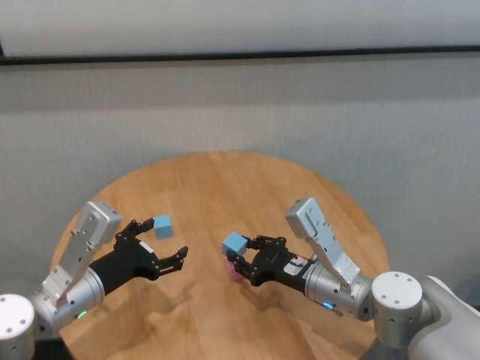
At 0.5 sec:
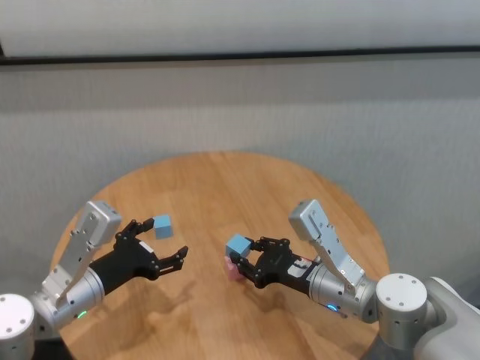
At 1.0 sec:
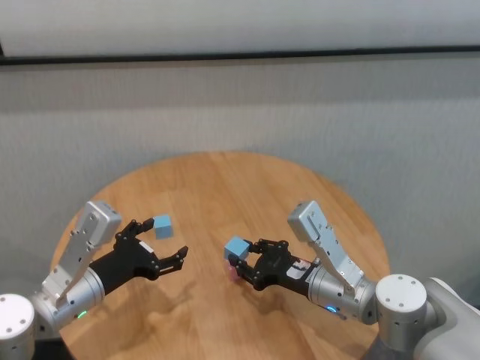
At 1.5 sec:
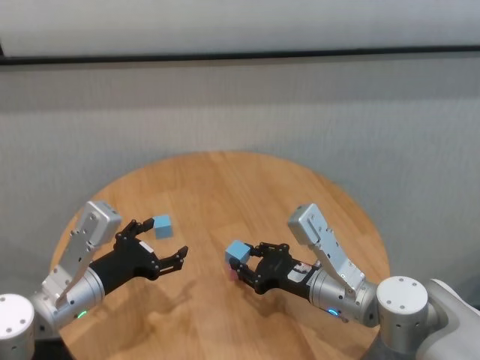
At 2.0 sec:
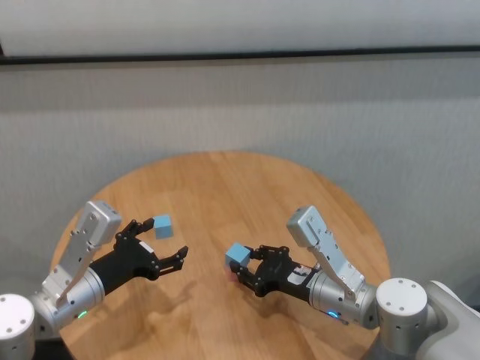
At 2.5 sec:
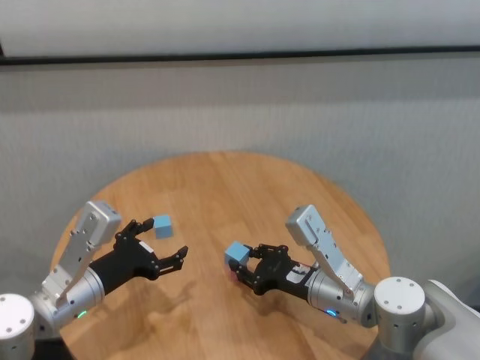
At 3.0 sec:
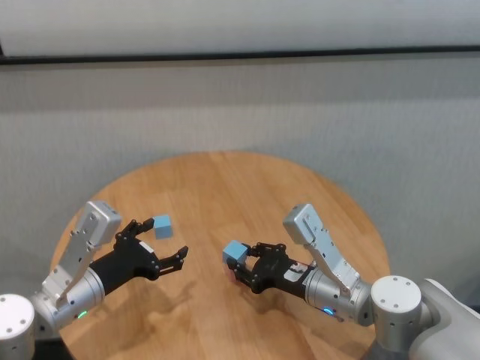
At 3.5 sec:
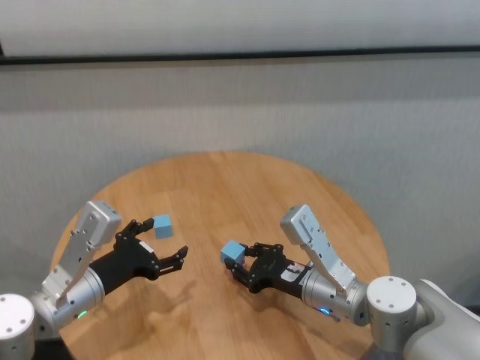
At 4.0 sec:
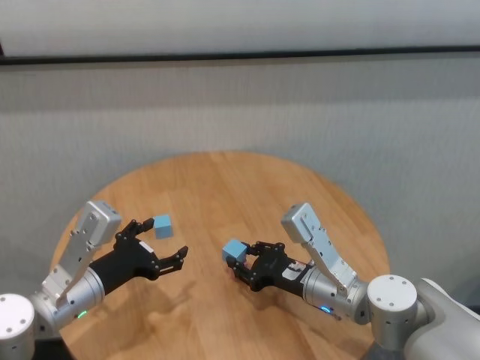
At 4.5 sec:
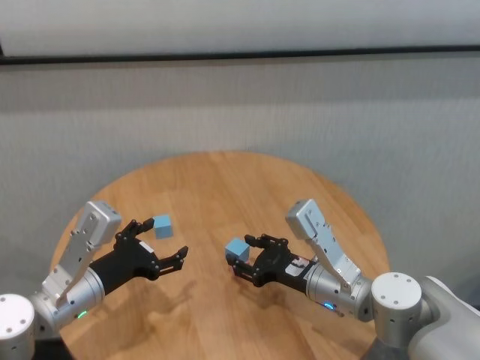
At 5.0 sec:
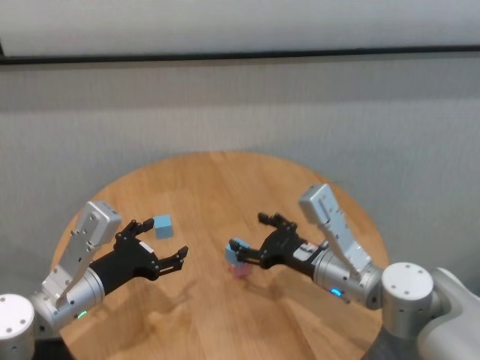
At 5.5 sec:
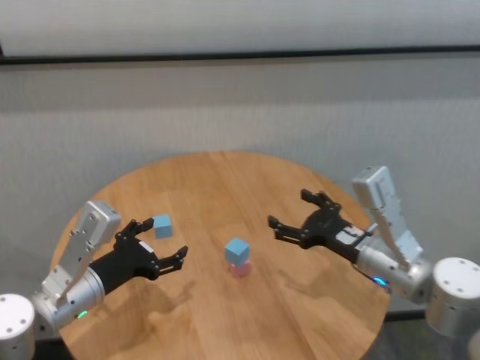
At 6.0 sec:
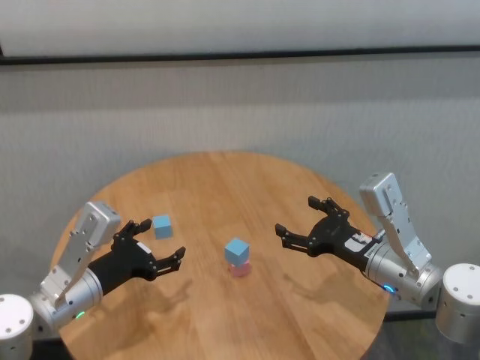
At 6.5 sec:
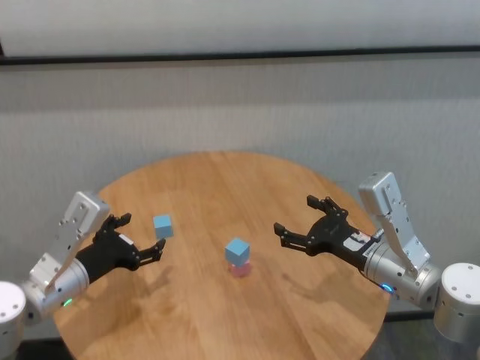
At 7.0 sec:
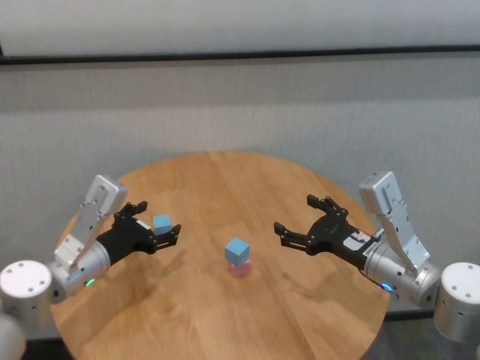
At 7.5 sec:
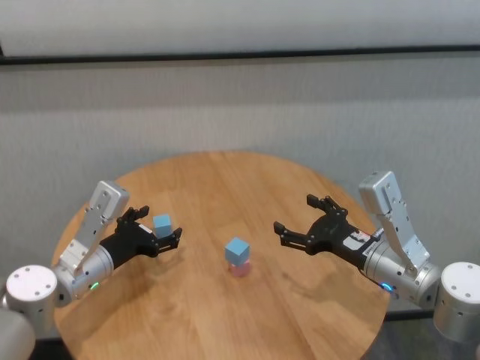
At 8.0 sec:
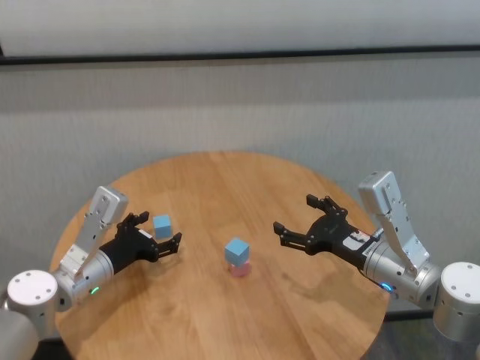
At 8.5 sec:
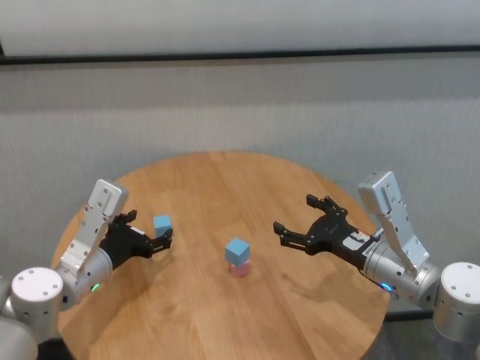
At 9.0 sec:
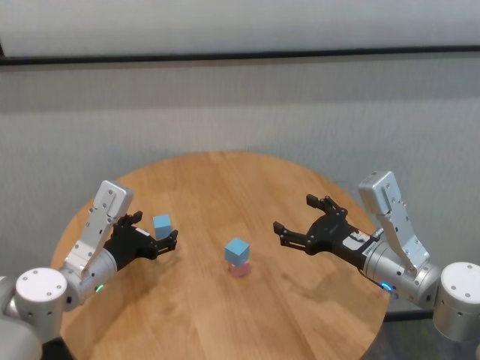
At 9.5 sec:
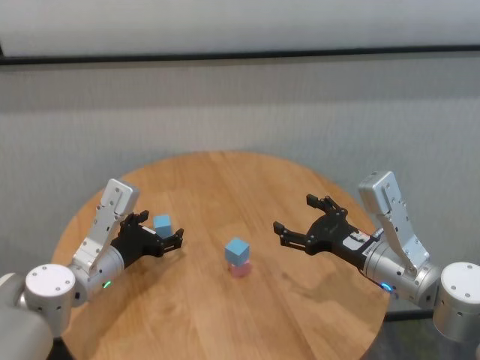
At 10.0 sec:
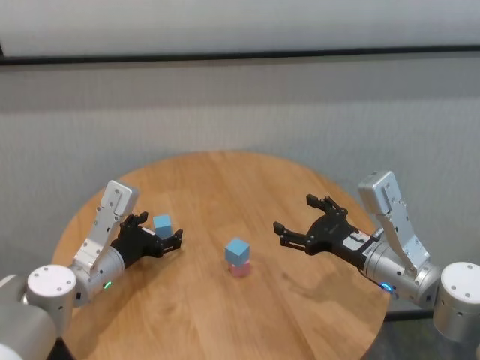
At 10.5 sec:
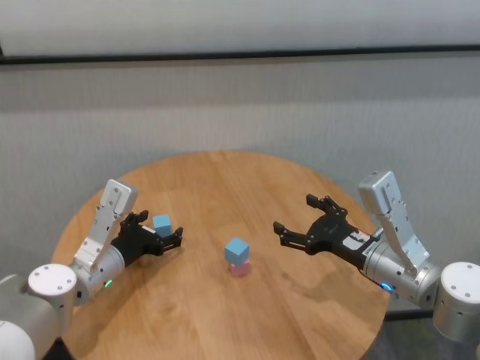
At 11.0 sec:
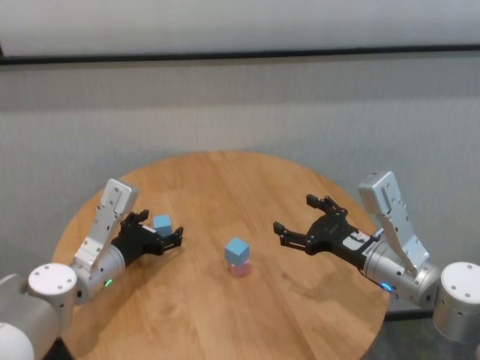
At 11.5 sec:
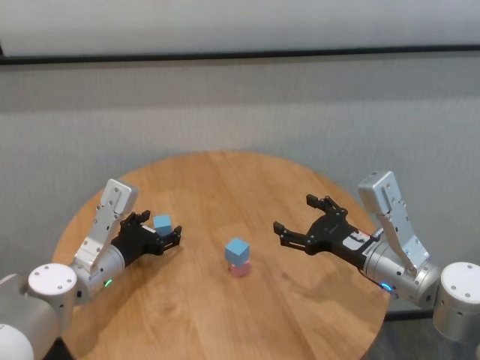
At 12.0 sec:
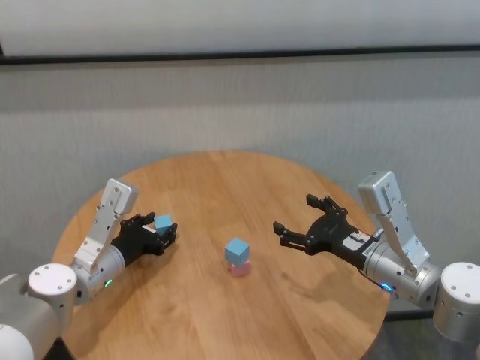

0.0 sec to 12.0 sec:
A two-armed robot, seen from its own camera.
Task of the whole recording: stack building blocks on the table.
Step, 0.0 sec to 4.5 sec: Place the blue building block on the pink building blocks with right gripper.

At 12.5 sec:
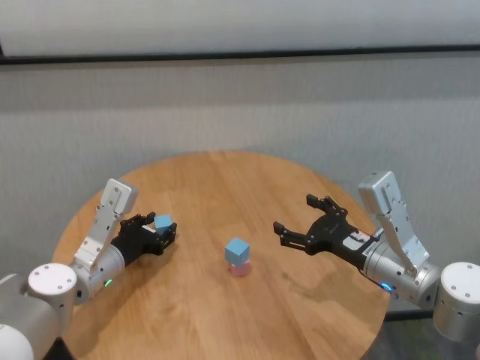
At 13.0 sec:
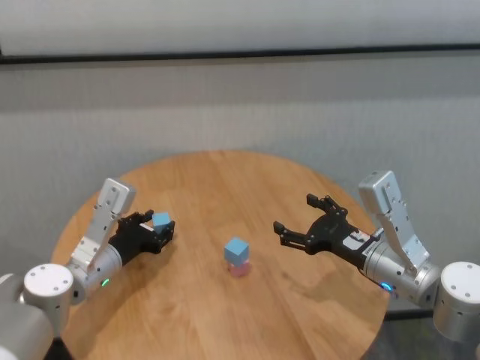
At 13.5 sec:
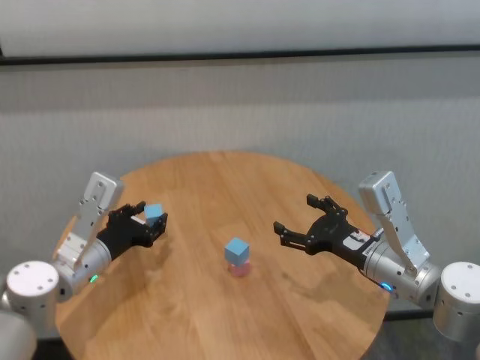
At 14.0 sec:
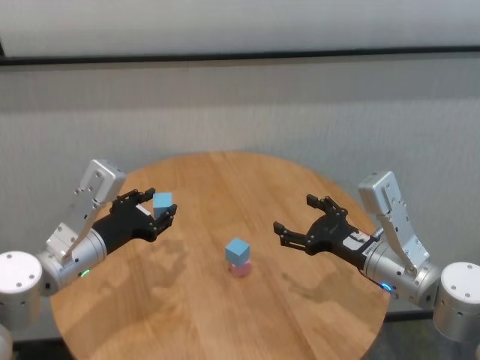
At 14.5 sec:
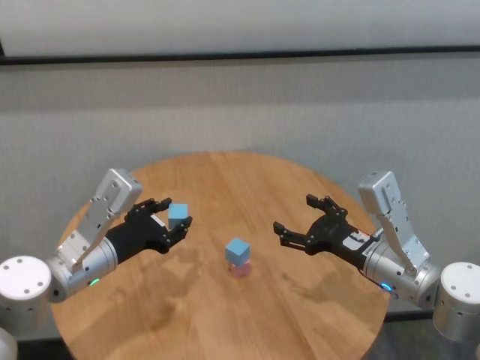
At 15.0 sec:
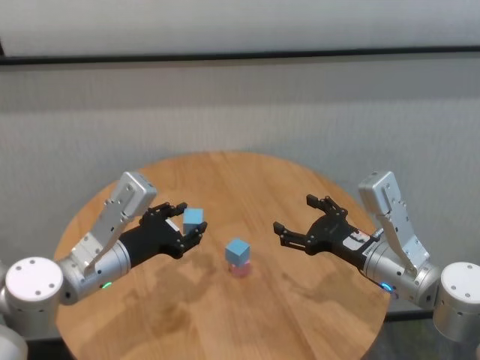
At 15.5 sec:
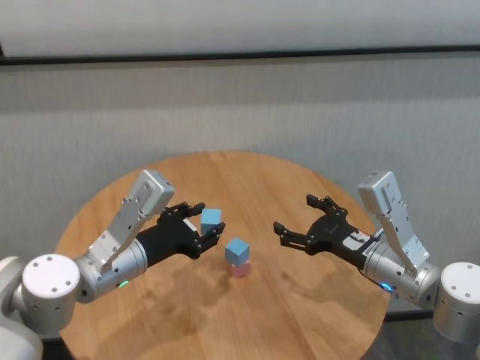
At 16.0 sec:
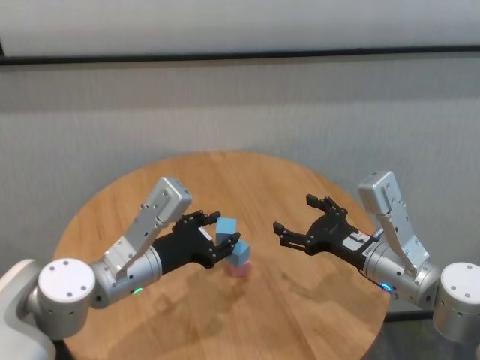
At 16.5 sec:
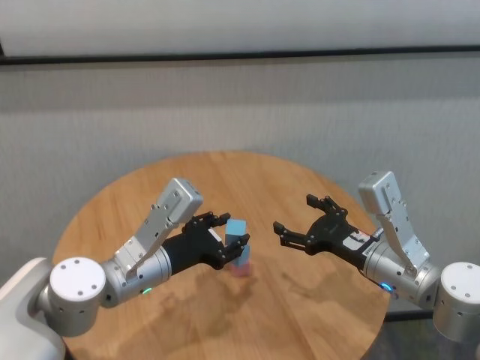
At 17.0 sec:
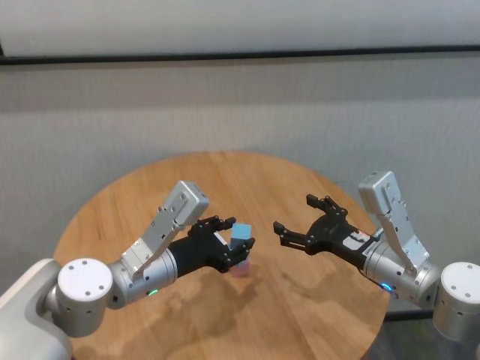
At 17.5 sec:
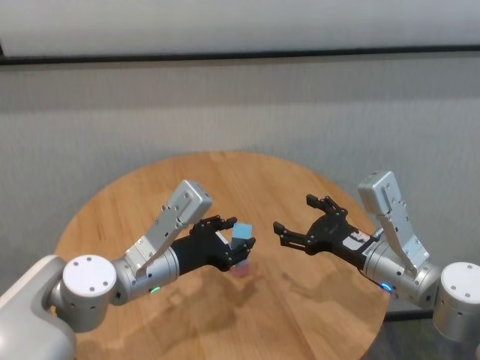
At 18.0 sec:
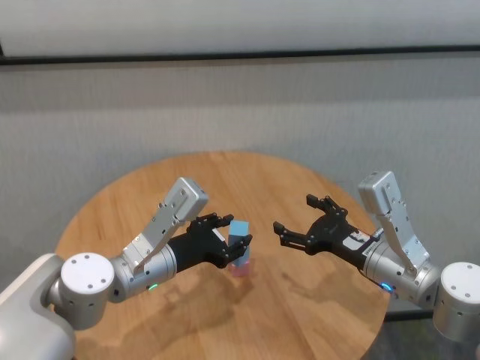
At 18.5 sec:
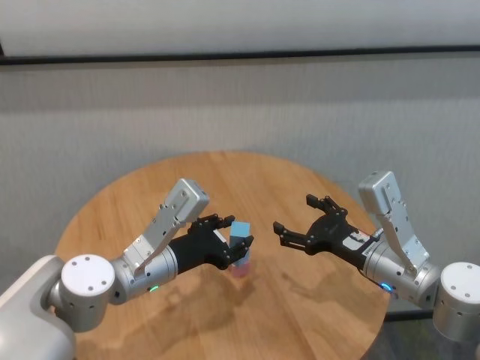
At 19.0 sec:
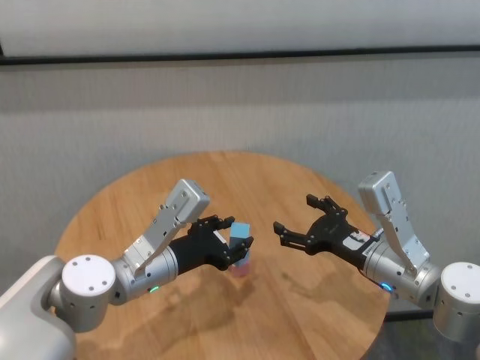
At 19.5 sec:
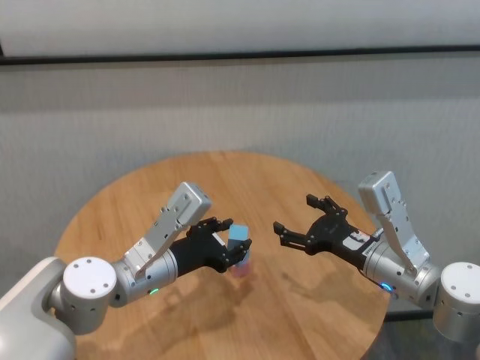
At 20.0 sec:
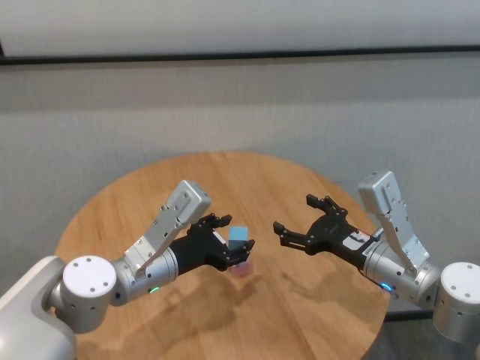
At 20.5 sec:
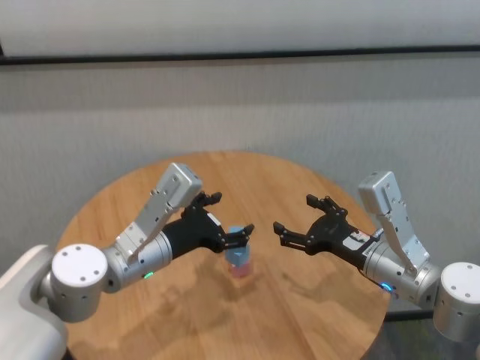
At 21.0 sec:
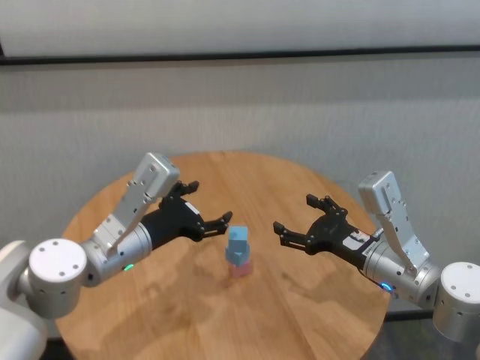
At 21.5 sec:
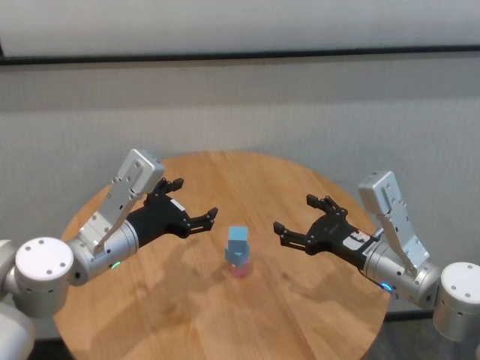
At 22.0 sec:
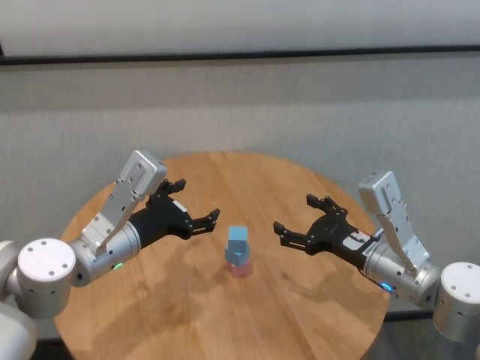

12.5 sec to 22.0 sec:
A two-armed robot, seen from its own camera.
Task of the whole recording: stack building blocks on the table.
Step, 13.0 sec to 20.0 sec: Place the blue building block on the pink building blocks with left gripper.
